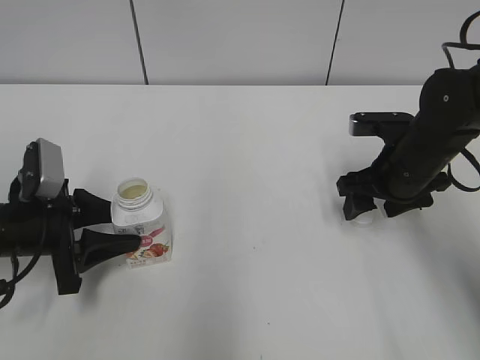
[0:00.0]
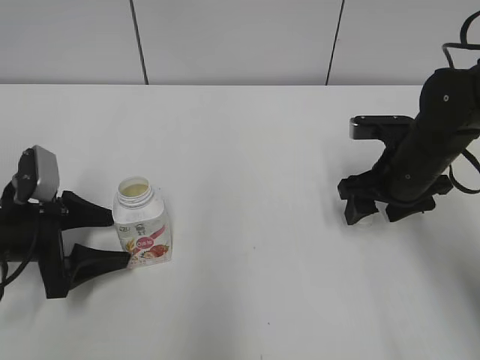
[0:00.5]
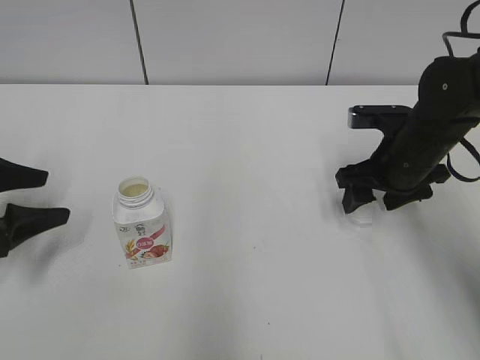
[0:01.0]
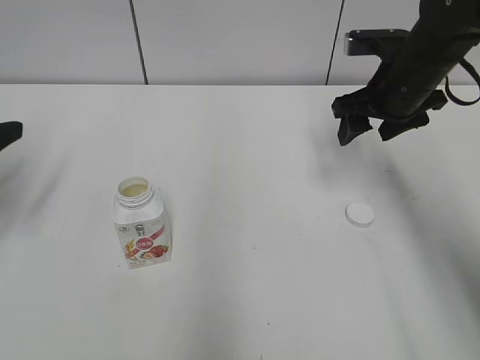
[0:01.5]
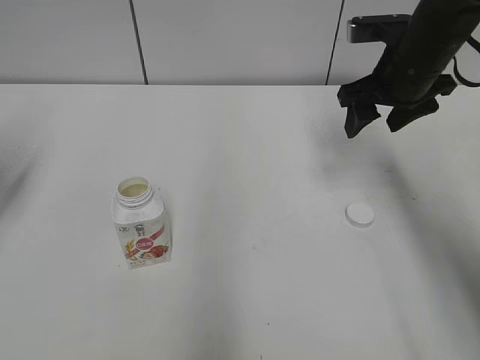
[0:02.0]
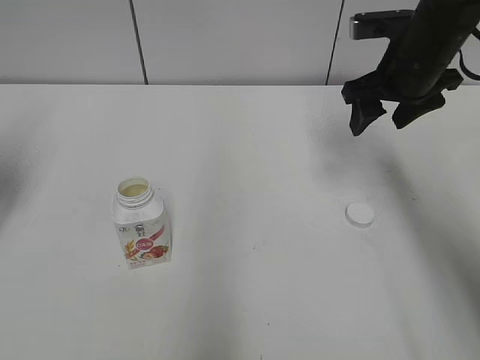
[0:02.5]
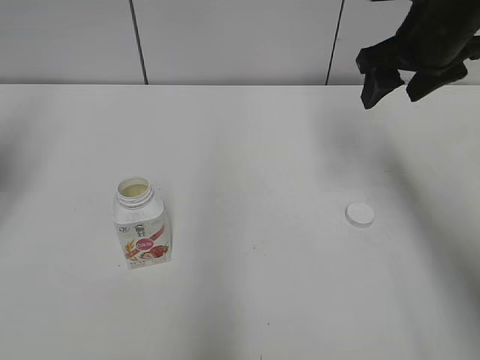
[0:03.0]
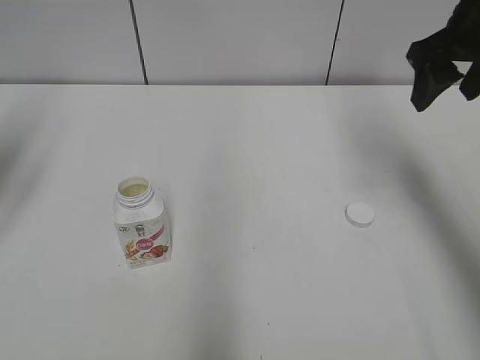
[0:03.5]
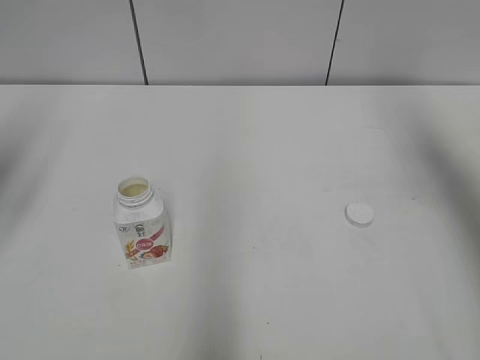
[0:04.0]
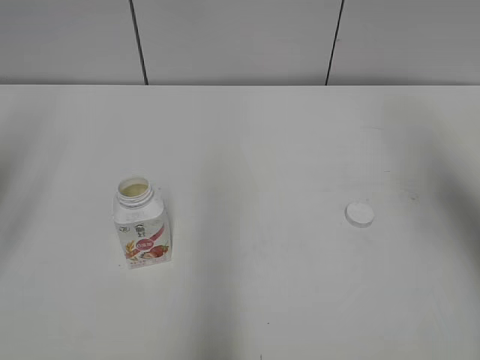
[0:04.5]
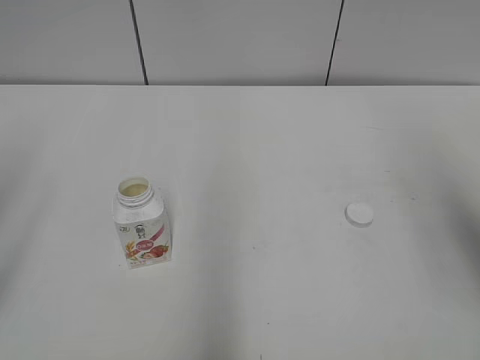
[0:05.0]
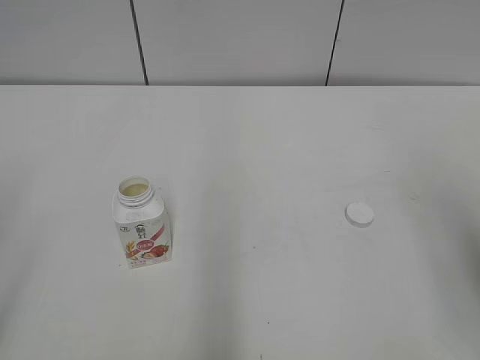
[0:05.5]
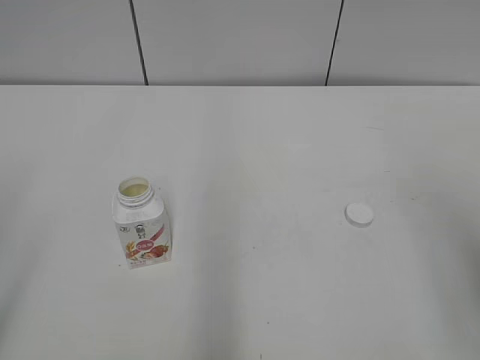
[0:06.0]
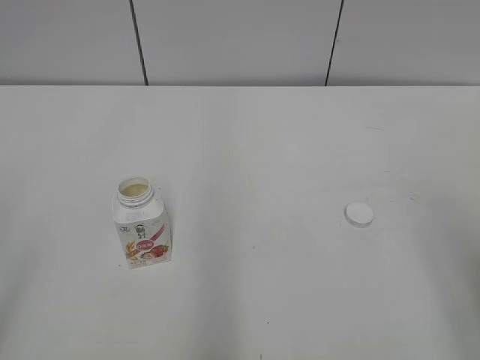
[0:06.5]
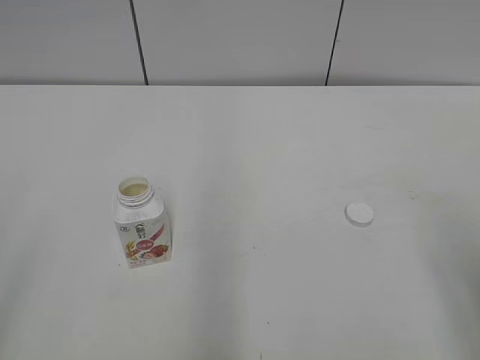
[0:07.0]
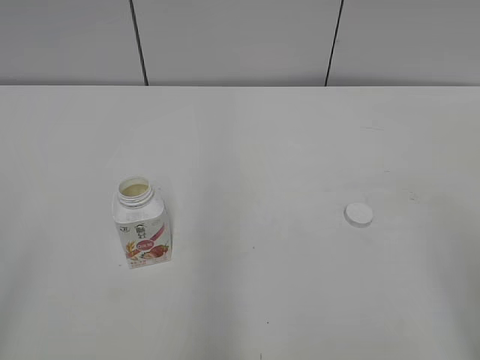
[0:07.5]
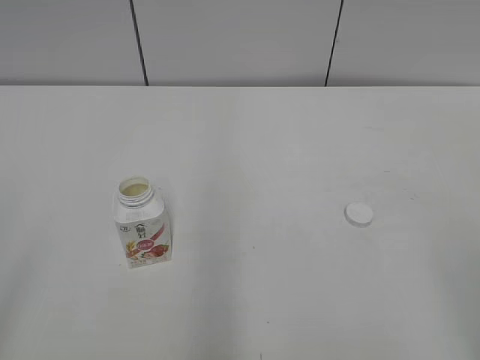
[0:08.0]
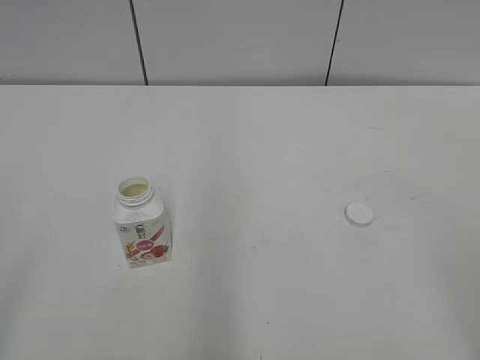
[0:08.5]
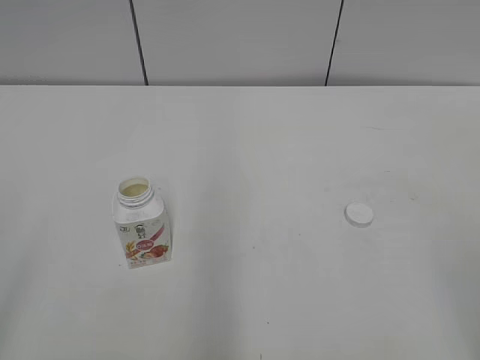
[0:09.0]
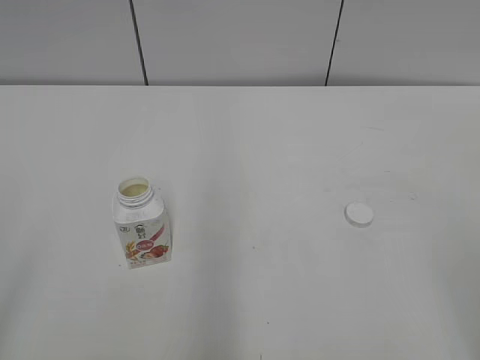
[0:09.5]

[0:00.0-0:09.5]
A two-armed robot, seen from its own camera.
0:00.0 to 0:02.0: The left gripper heads upward and to the left, covering about 20 cm, and opens its fingers, while the right gripper is displaced upward and forward by about 10 cm.
0:02.0 to 0:04.0: The right gripper goes about 20 cm upward, to the right and backward.
0:04.0 to 0:05.5: Both grippers travel together backward, approximately 20 cm.

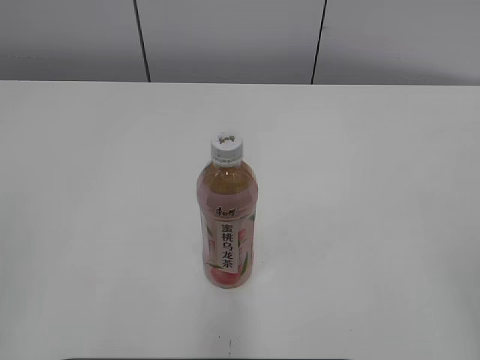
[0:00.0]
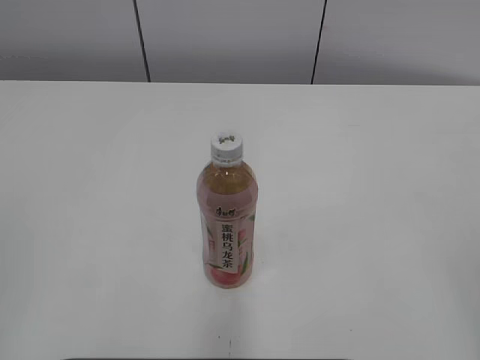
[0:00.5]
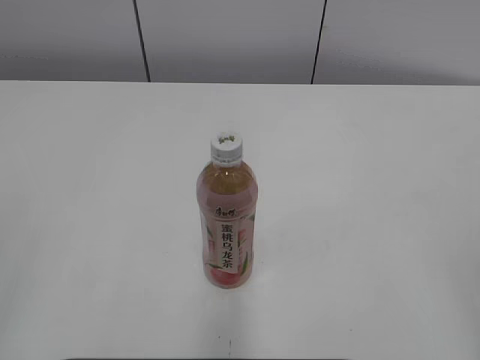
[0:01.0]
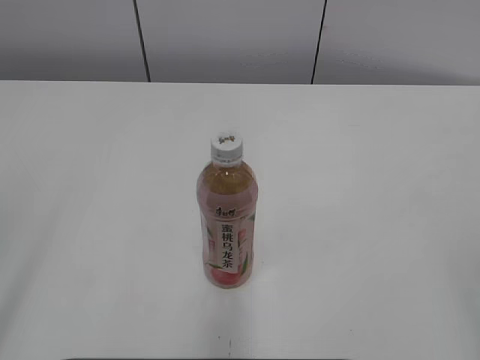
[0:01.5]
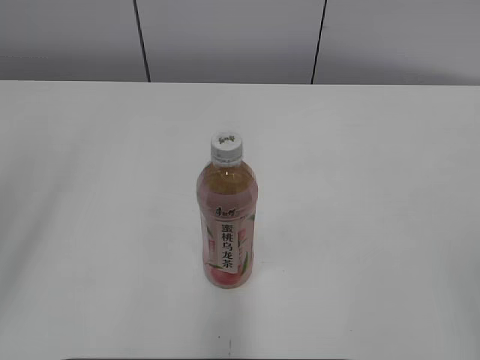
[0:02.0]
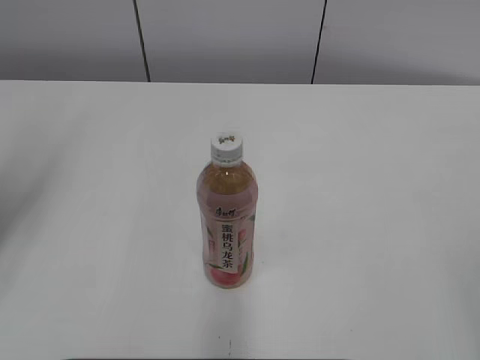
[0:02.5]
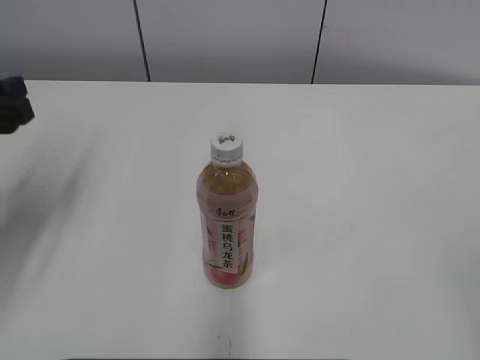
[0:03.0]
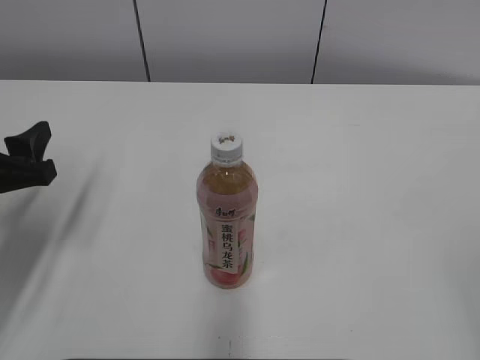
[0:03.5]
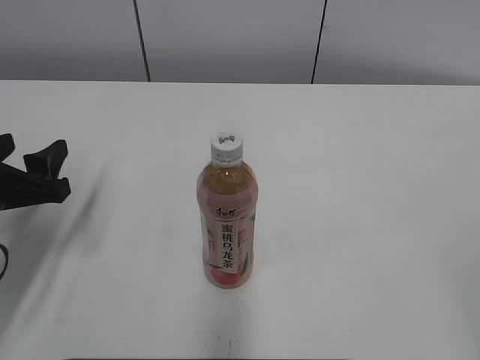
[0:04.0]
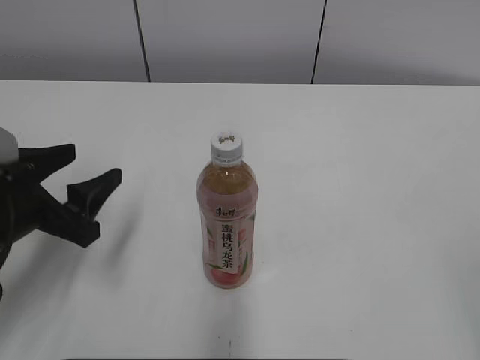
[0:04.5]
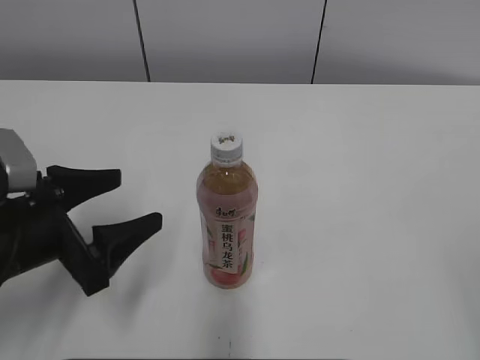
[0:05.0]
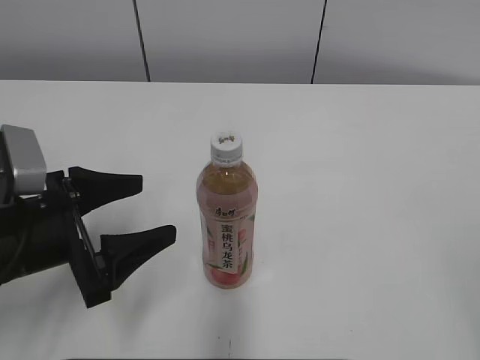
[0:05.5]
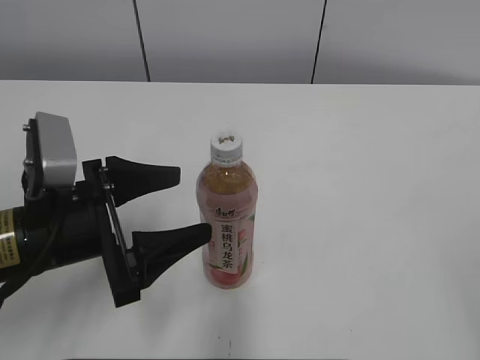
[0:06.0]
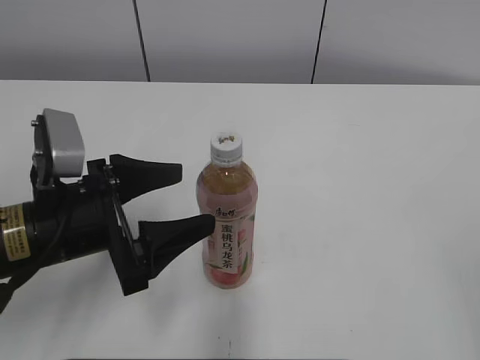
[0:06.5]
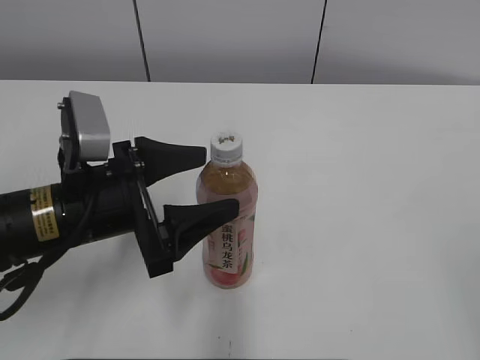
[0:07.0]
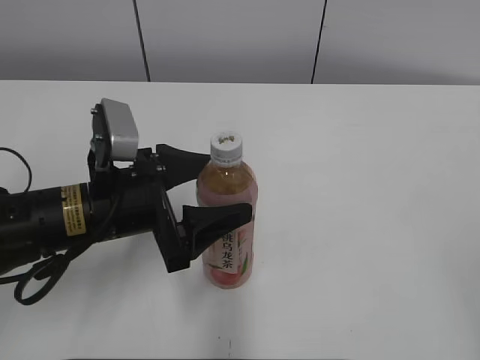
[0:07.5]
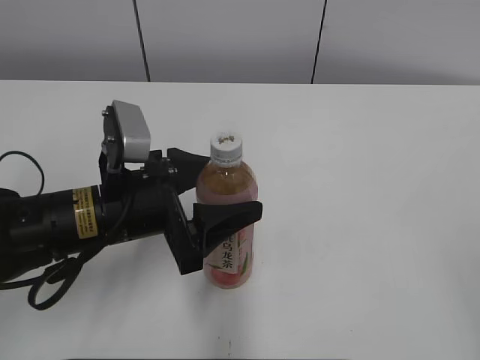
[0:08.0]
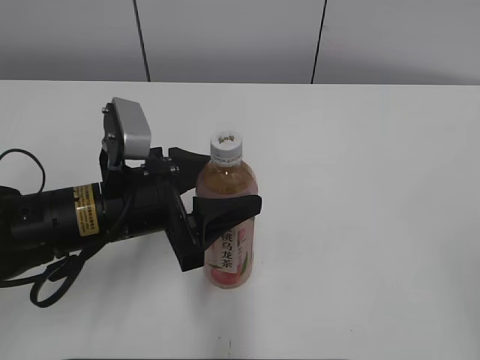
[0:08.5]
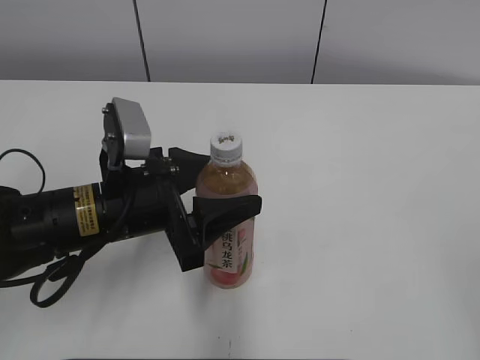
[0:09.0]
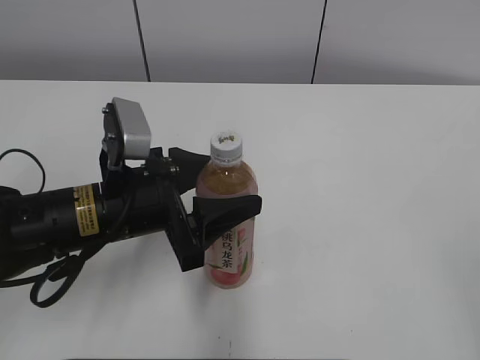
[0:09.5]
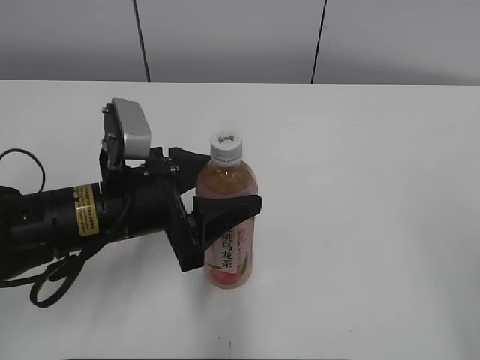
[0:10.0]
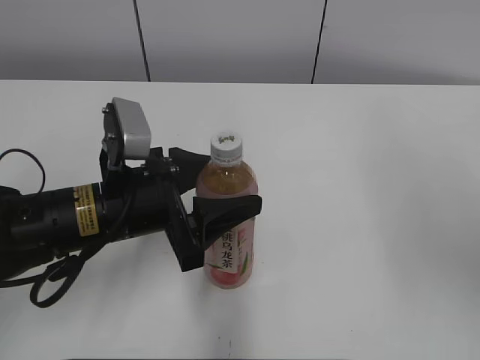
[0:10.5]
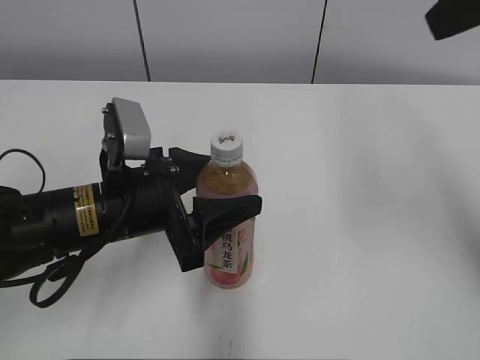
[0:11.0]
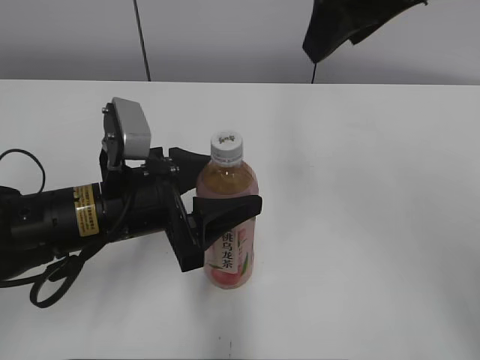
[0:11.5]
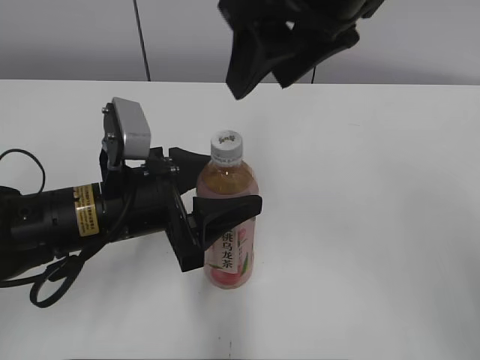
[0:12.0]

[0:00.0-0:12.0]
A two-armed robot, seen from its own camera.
Step, 0:00.0 to 0:08.0: Grab the Peach Oolong Tea with the left hand.
0:02.0 to 0:04.0: The left gripper is displaced downward and forward by some 25 cm.
0:04.0 to 0:06.0: The left gripper travels to the right by roughly 10 cm, and opens.
0:06.0 to 0:08.0: The left gripper changes place by some 5 cm, and closes up.
0:08.0 to 0:10.0: The left gripper closes up.
0:10.0 to 0:12.0: The right gripper is displaced forward and to the left by approximately 35 cm.

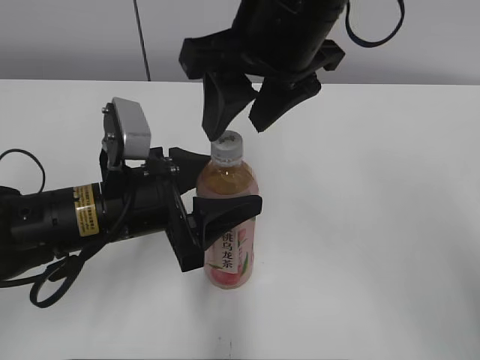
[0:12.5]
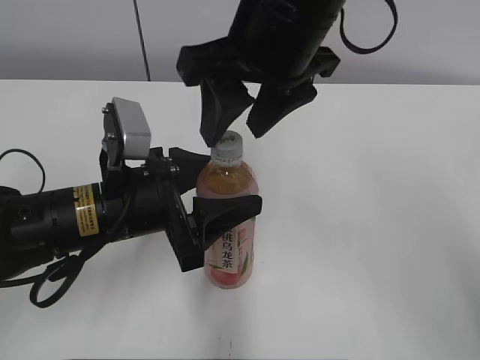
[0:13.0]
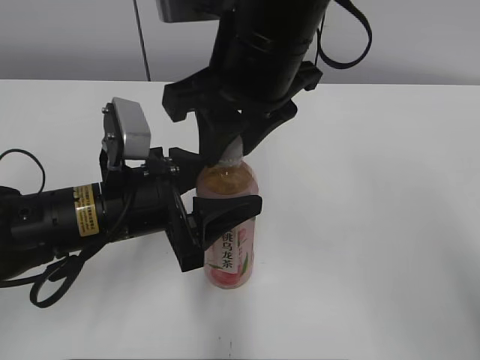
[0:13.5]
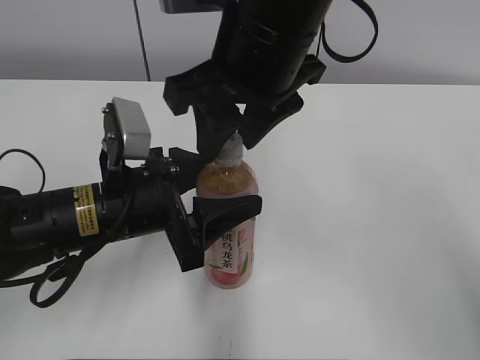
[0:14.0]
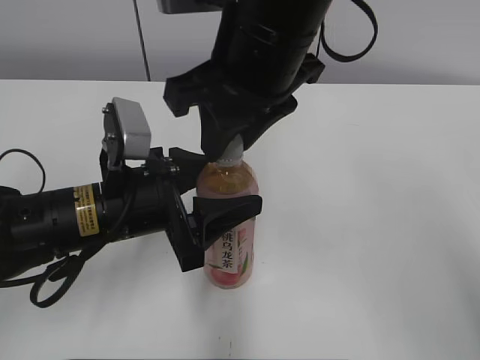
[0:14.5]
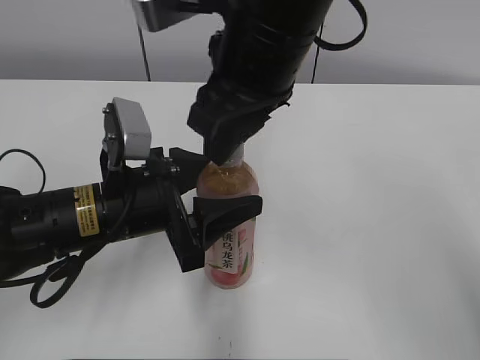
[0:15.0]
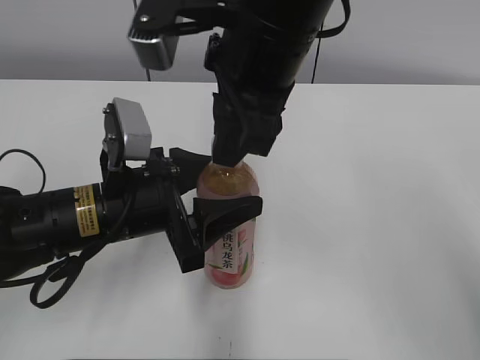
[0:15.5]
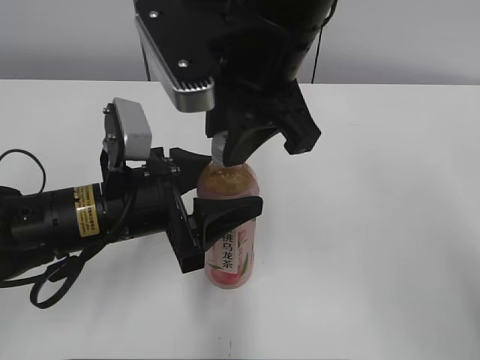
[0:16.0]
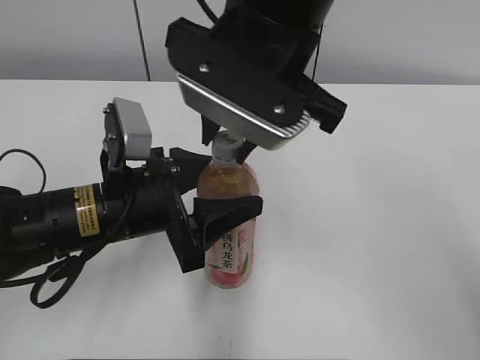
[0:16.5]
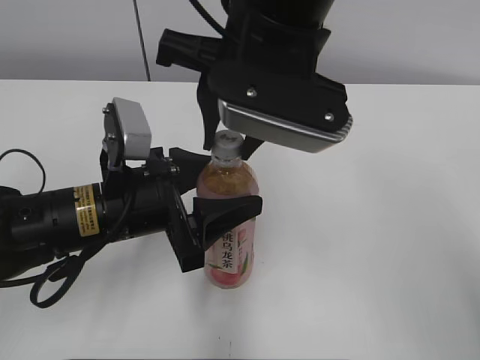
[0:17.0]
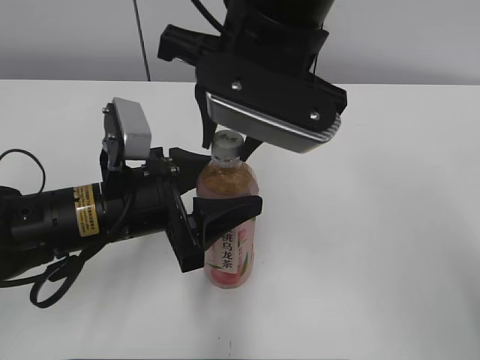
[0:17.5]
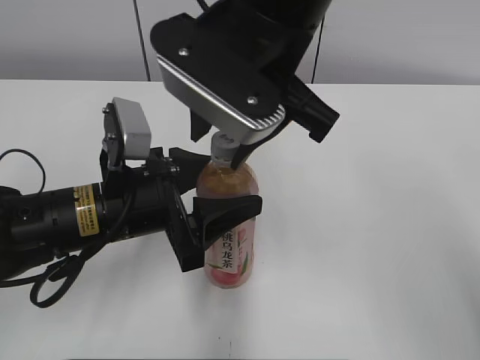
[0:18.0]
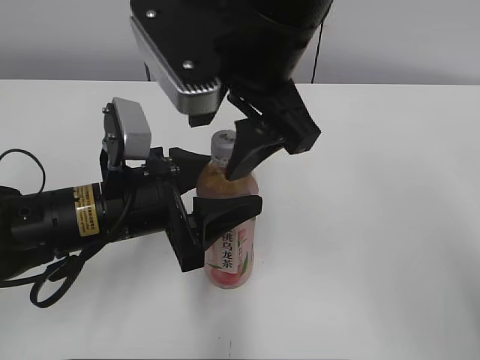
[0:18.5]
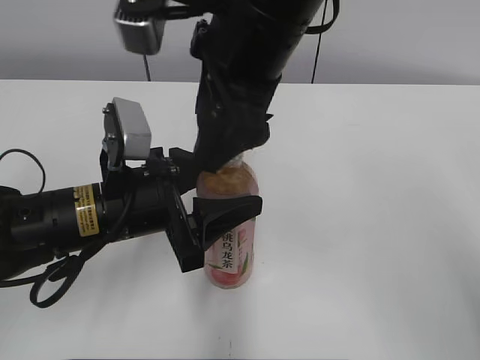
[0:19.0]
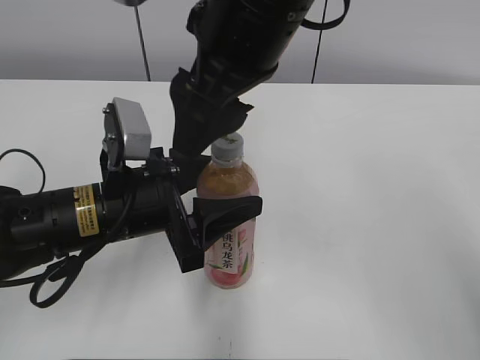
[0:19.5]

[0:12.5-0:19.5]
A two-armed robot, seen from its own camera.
0:12.5 to 0:14.5: The right gripper closes.
0:17.5 to 0:19.5: The right gripper opens.
